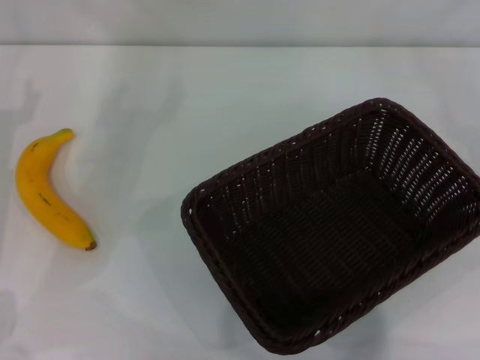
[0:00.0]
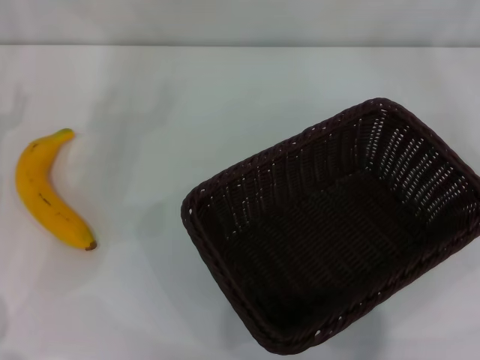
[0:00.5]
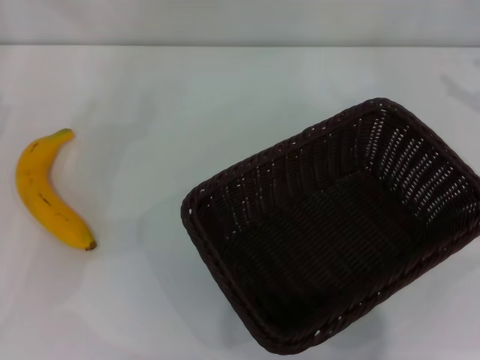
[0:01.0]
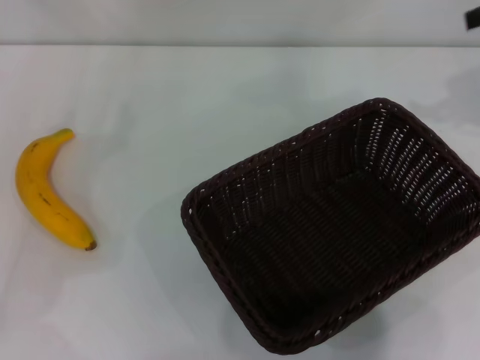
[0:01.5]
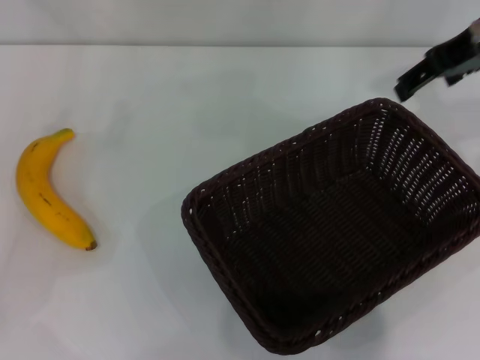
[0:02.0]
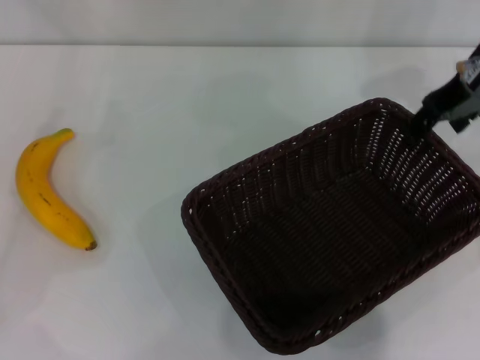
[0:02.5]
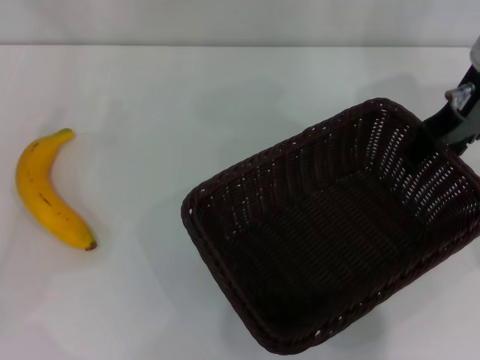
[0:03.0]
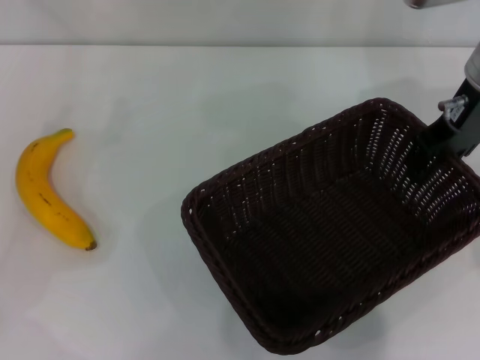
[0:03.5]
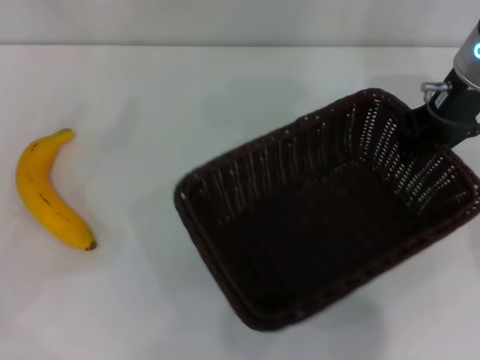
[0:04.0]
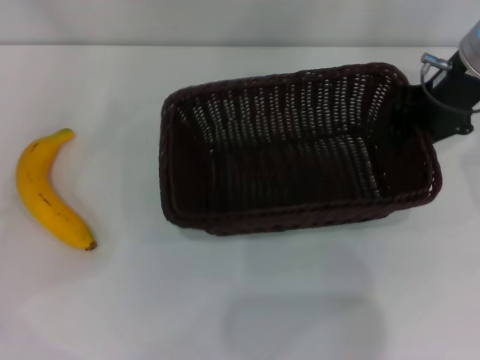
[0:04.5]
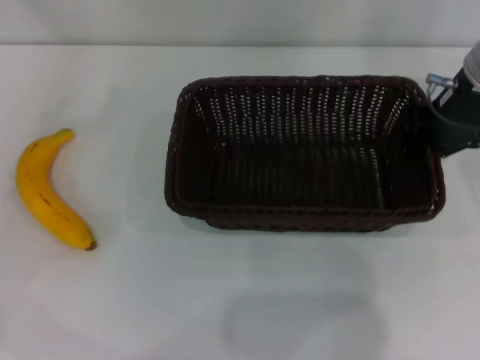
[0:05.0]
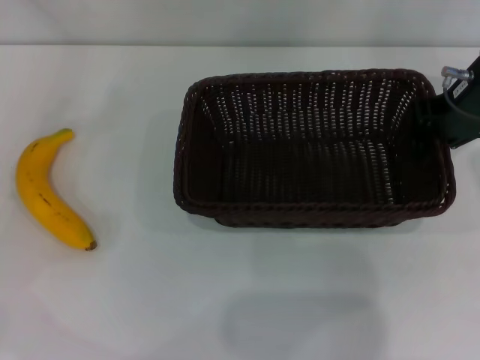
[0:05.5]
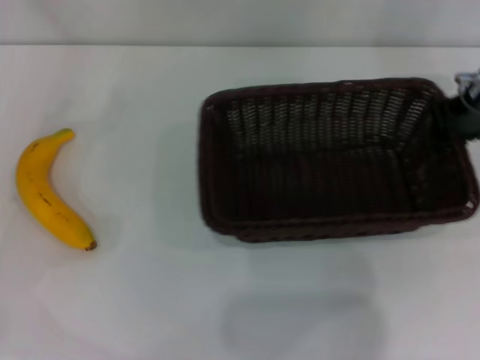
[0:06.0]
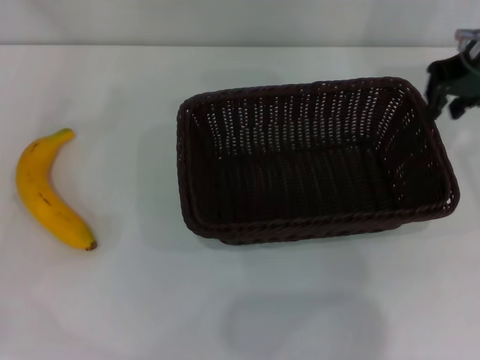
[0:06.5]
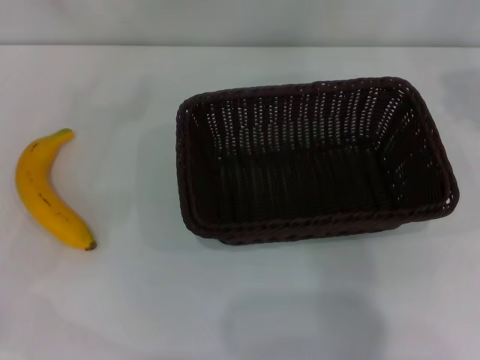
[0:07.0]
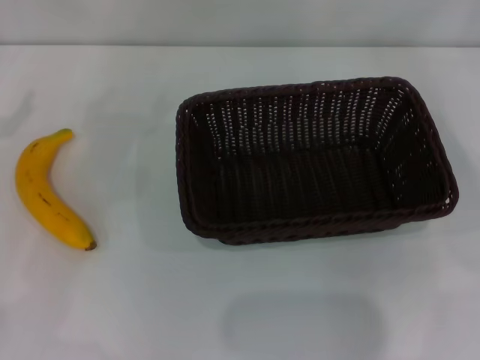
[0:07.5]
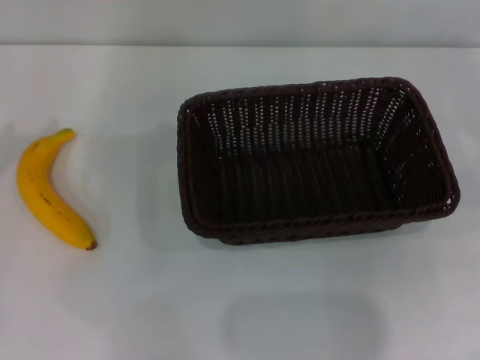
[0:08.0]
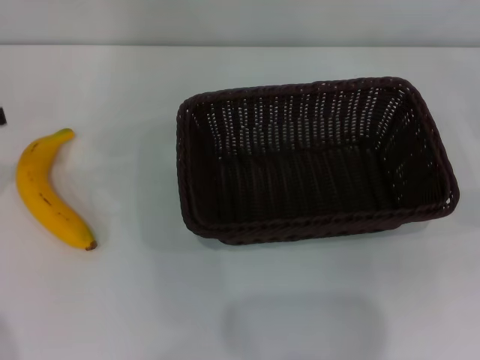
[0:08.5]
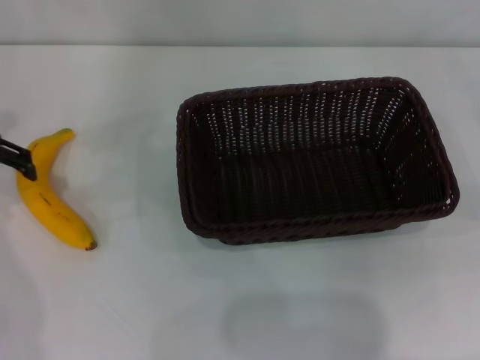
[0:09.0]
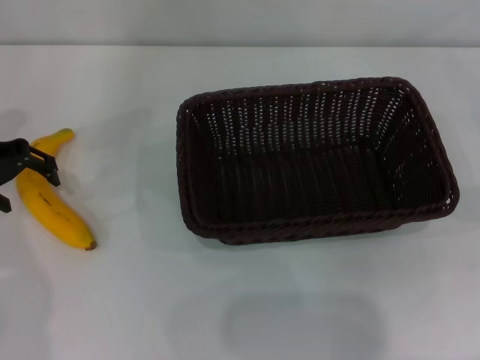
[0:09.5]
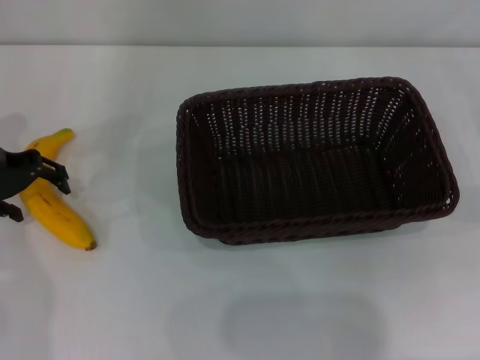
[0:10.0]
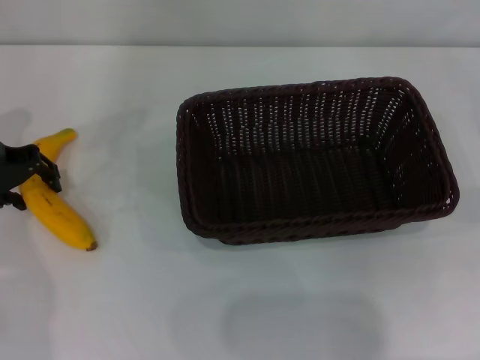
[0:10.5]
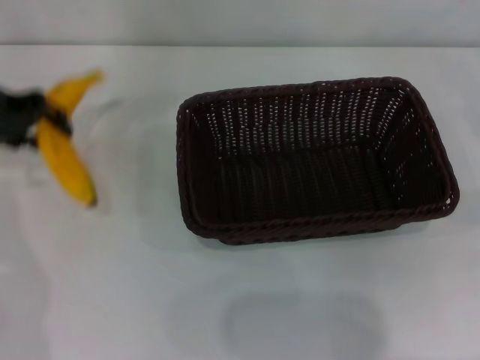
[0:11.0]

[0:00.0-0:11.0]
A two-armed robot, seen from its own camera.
Step, 0:00.0 to 0:04.0: Pick up the dark basket with the right gripper.
Step, 0:04.5 to 0:06.0: Place the dark basket in the center of view with the right gripper.
Step, 0:06.5 to 0:10.5: Pick up the banana with the left gripper.
0:00.0 to 0:02.0: The right gripper shifts approximately 30 cm upward, to the left and forward.
0:02.0 to 0:03.5: The right gripper is displaced downward by approximately 5 cm.
0:03.5 to 0:05.5: The left gripper shifts by some 5 cm, while the right gripper closes up.
0:05.5 to 0:07.5: The right gripper travels to the right by approximately 20 cm.
0:09.0 to 0:11.0: The left gripper closes its fingers.

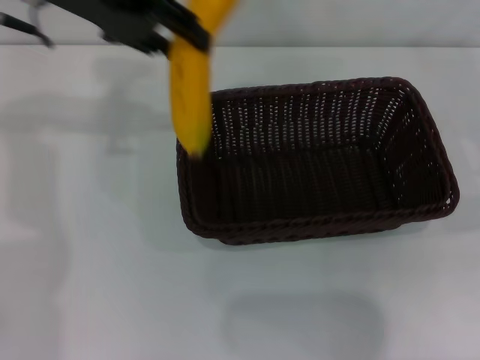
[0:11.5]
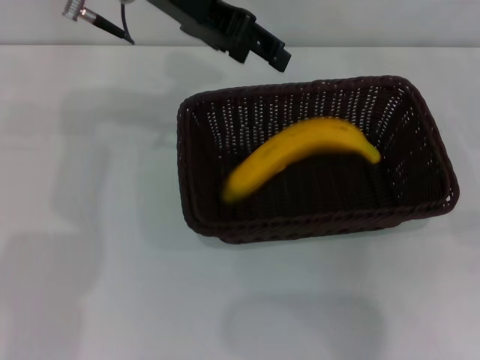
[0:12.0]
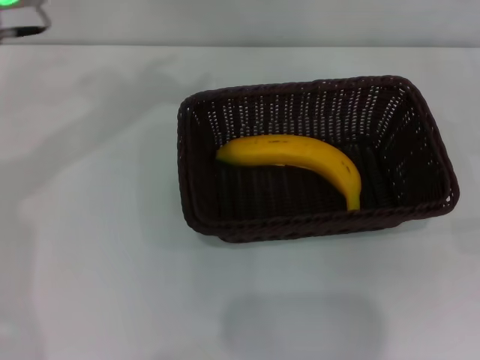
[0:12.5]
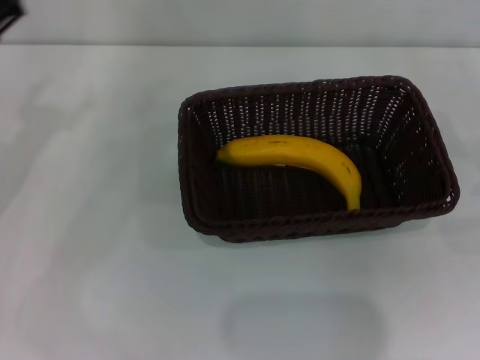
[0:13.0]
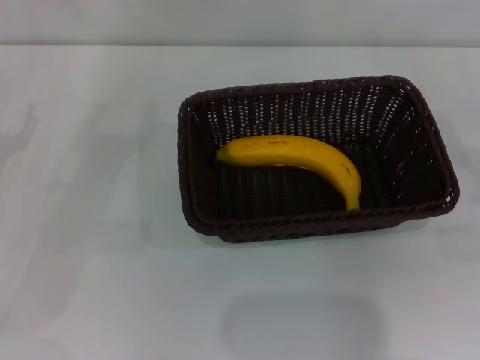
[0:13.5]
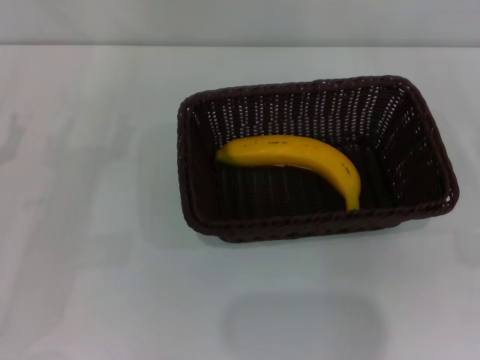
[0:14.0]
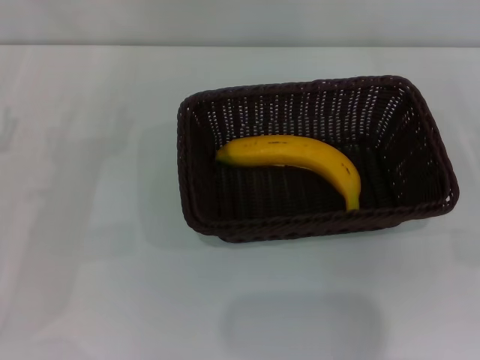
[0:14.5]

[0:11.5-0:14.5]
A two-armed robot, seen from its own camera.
0:11.5 to 0:13.0: The left gripper is displaced downward, to the left and backward by some 20 cm, and opens.

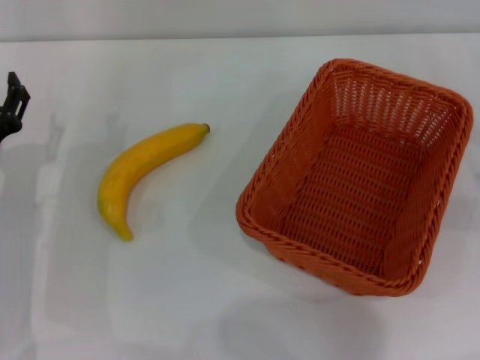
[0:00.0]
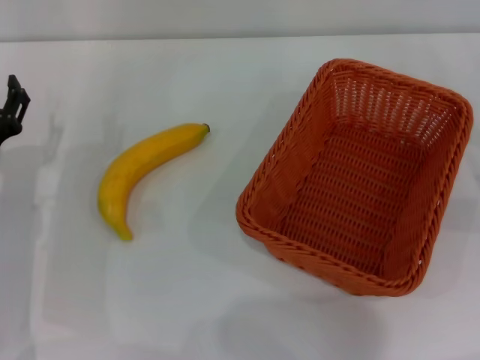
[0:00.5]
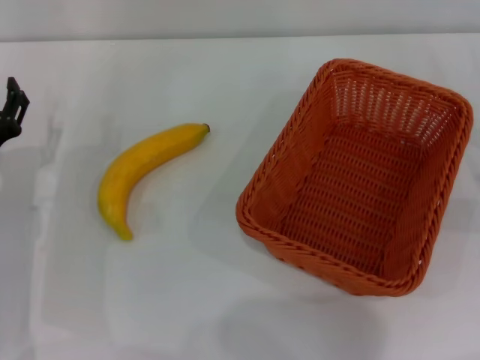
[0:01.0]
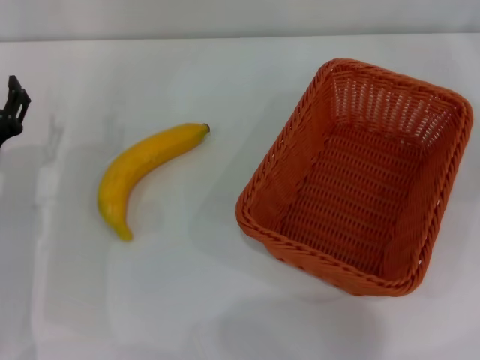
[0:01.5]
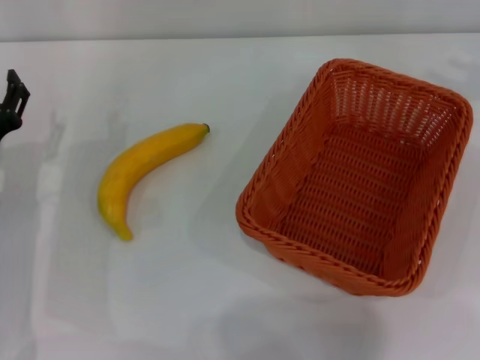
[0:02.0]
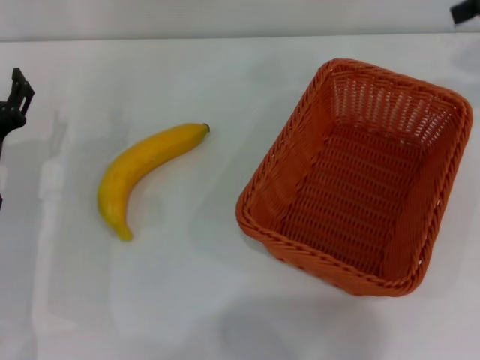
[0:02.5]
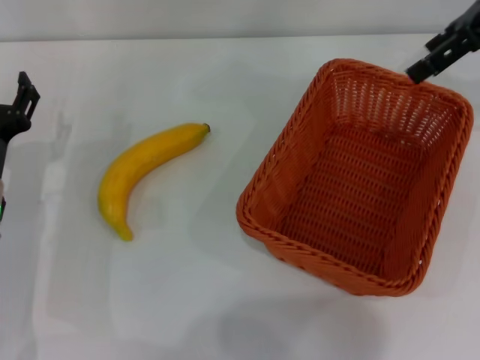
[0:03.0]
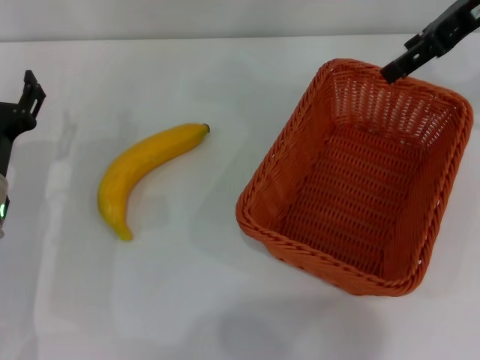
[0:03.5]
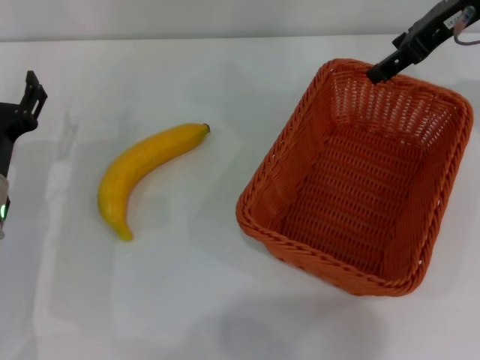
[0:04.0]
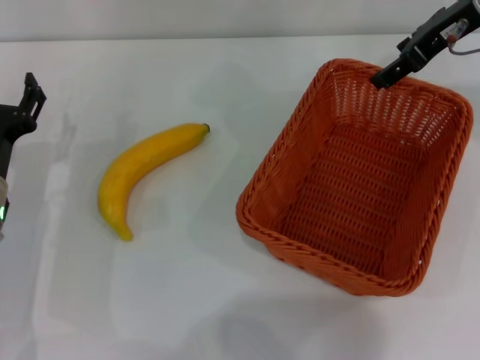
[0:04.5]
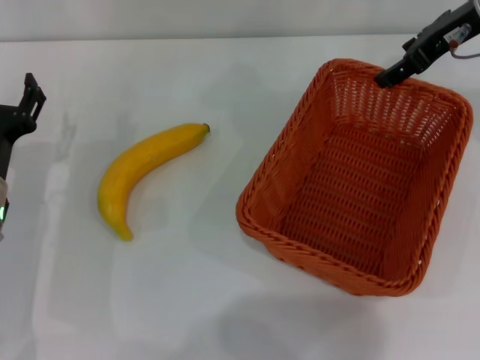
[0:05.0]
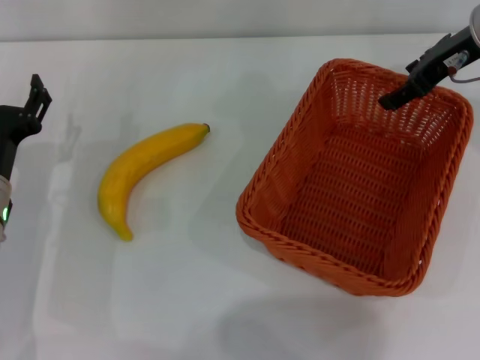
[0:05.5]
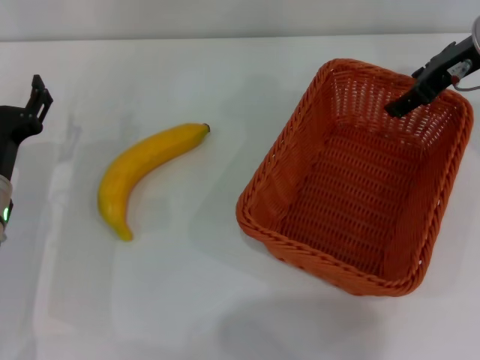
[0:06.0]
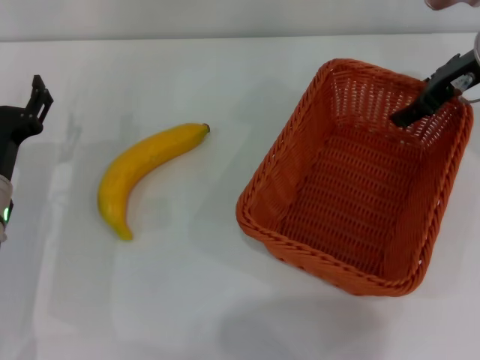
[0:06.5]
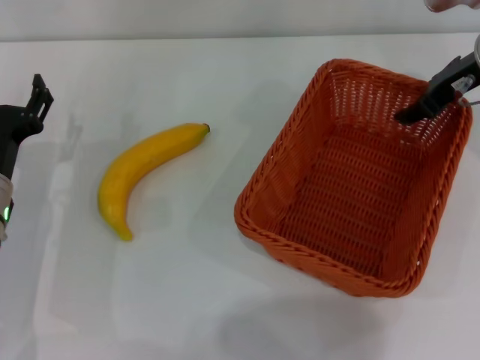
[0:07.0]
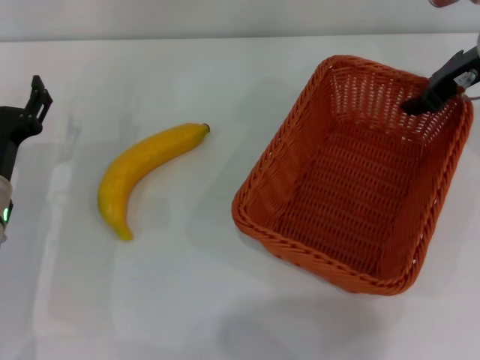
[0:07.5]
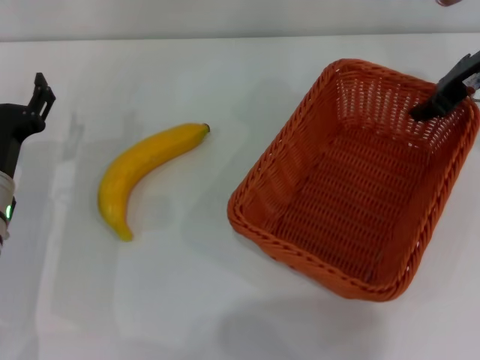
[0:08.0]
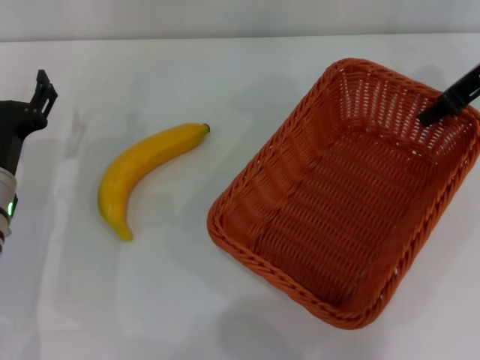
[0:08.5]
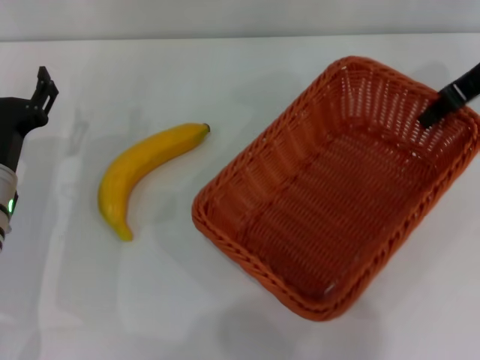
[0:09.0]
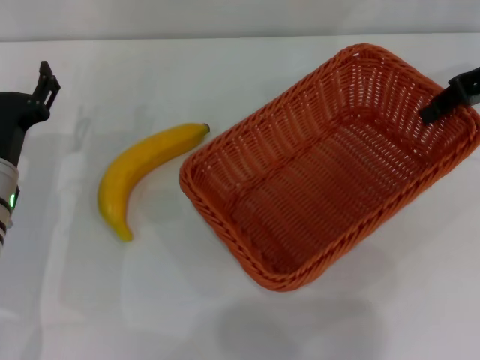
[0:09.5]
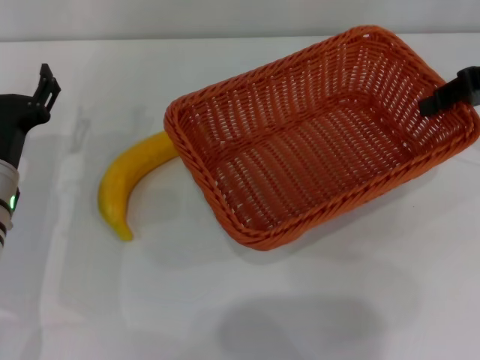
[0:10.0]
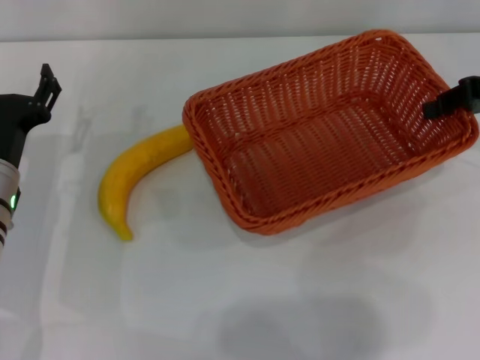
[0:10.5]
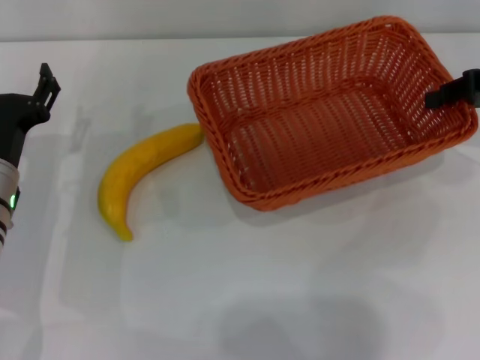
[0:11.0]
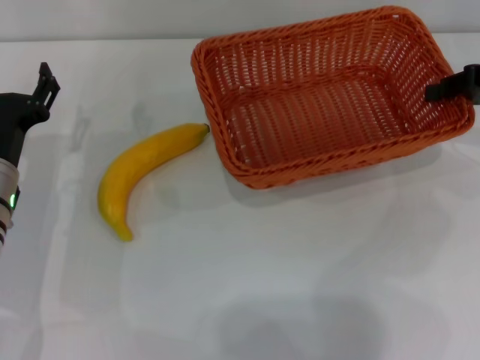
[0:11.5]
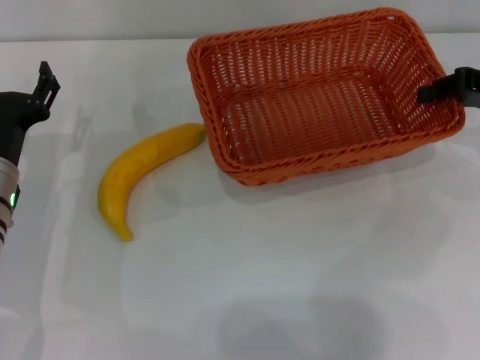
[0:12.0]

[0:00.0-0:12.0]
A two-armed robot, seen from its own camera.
Step, 0:00.0 to 0:08.5: Pick up the light basket with the right gripper.
0:02.0 to 0:04.0: The right gripper heads to the left, covering about 15 cm.
0:04.0 to 0:06.0: The right gripper moves downward, about 5 cm.
0:06.0 to 0:08.0: The right gripper closes.
0:08.0 to 0:10.0: The right gripper moves to the right, roughly 5 cm.
0:10.0 to 0:12.0: The right gripper travels downward by some 5 cm.
